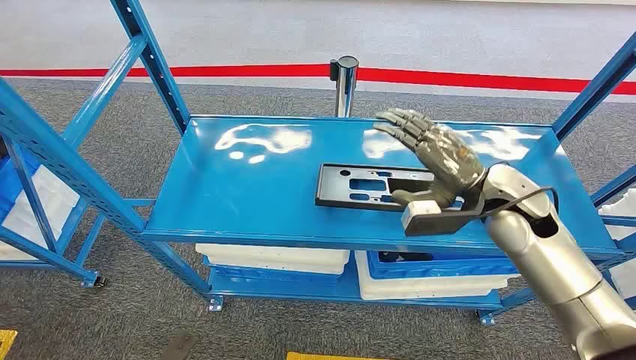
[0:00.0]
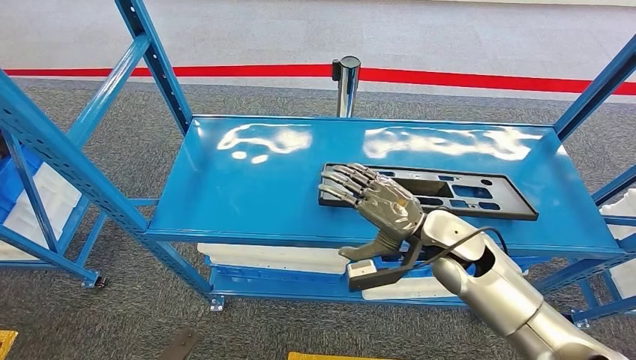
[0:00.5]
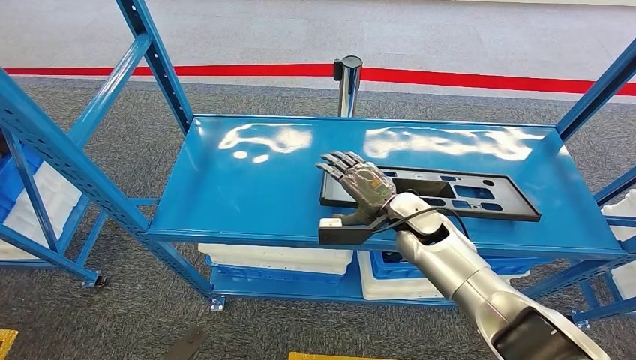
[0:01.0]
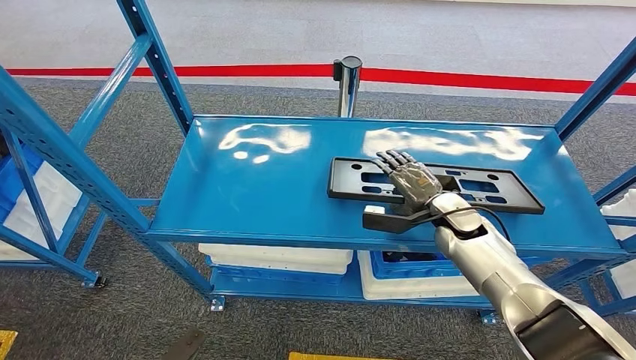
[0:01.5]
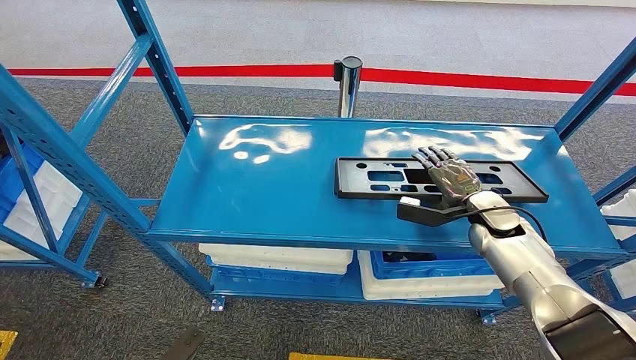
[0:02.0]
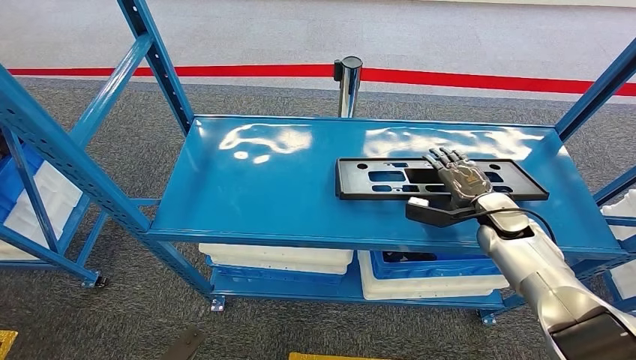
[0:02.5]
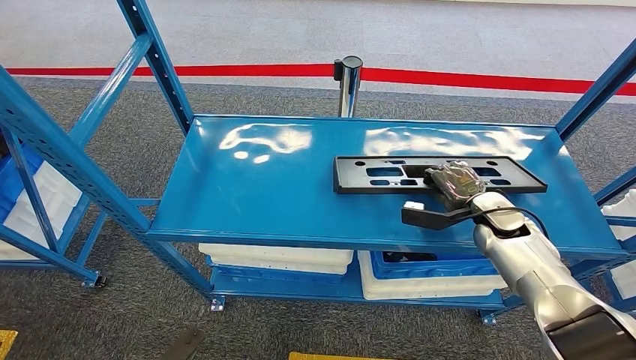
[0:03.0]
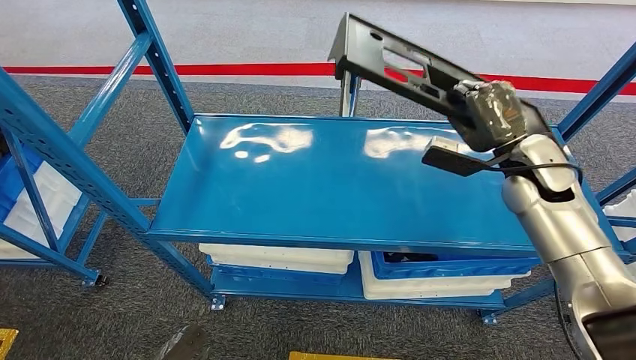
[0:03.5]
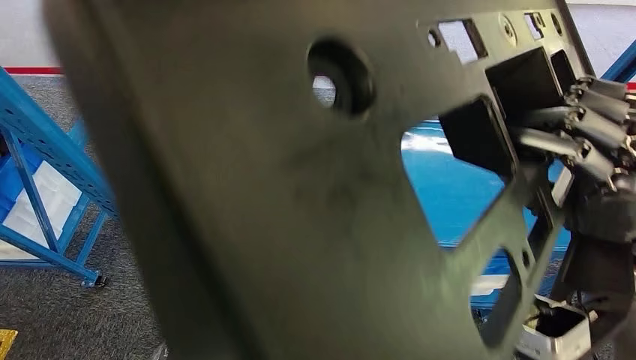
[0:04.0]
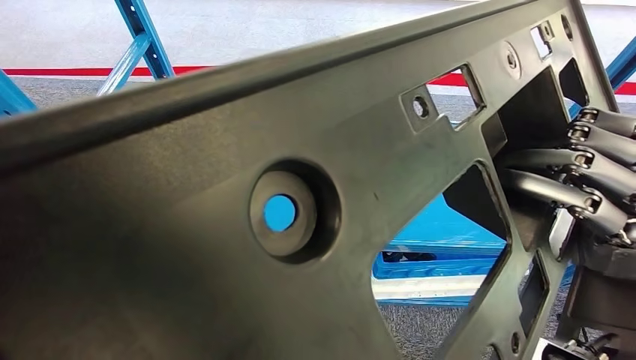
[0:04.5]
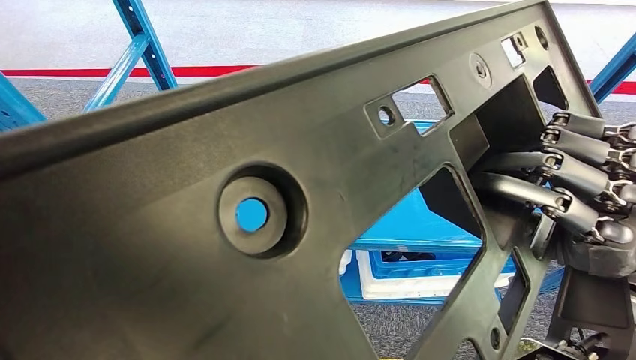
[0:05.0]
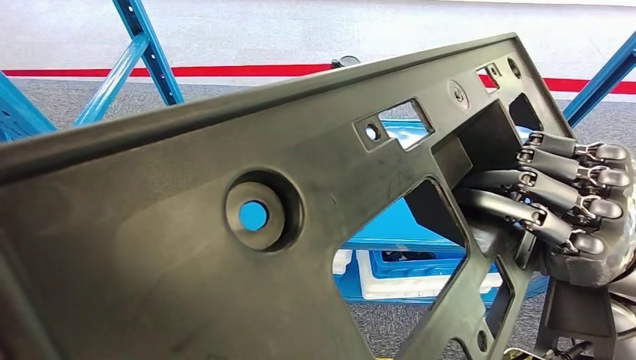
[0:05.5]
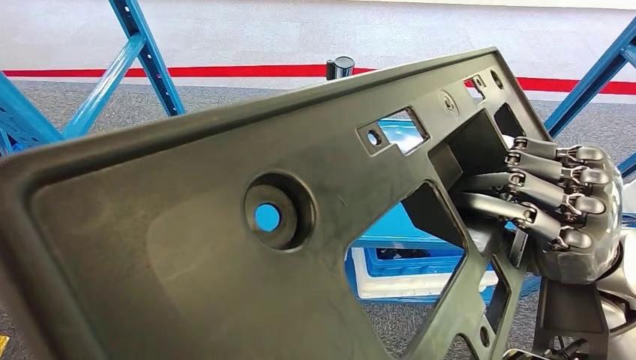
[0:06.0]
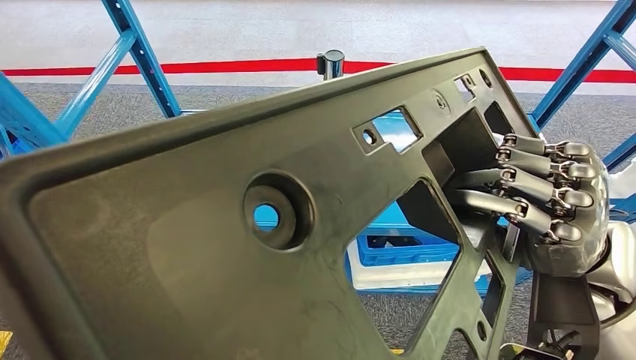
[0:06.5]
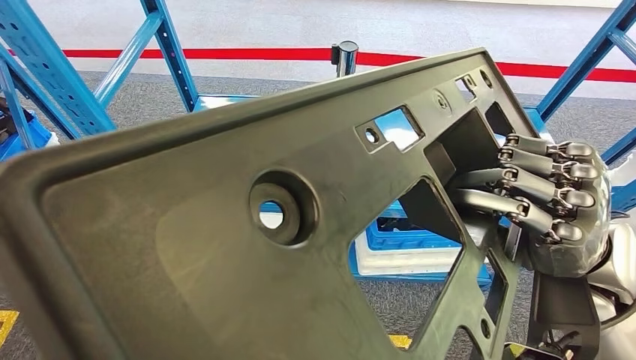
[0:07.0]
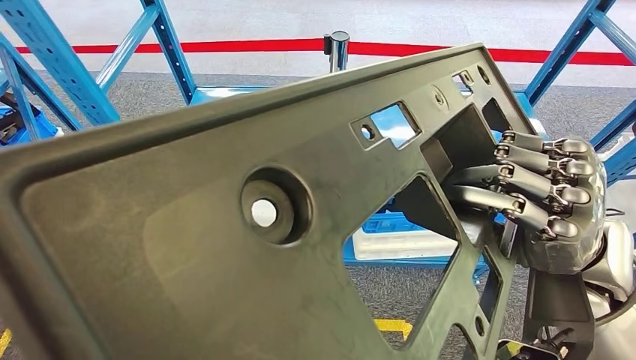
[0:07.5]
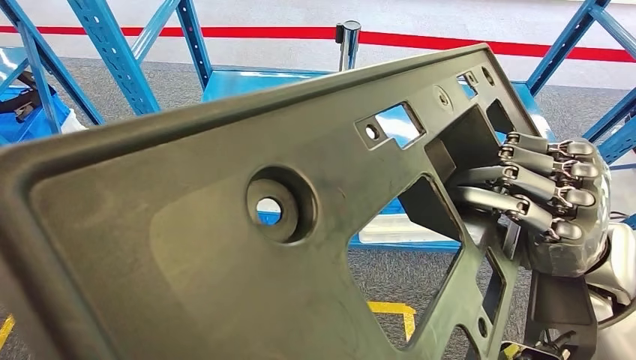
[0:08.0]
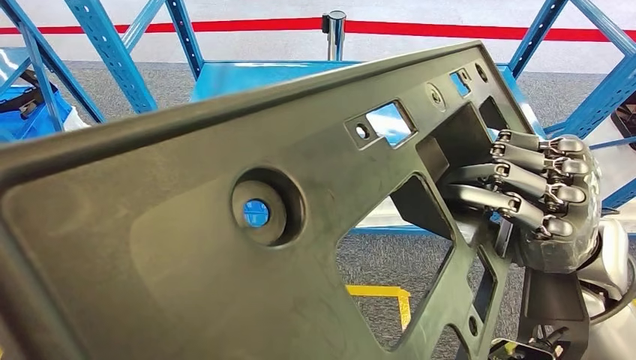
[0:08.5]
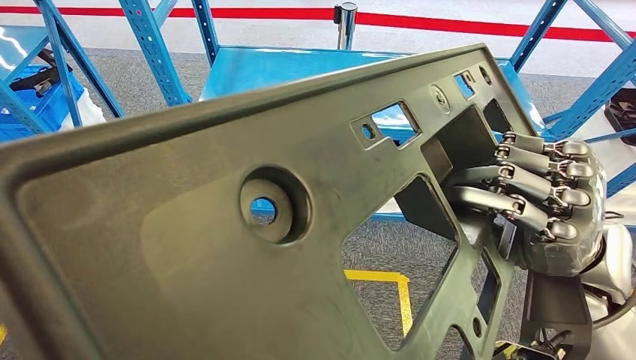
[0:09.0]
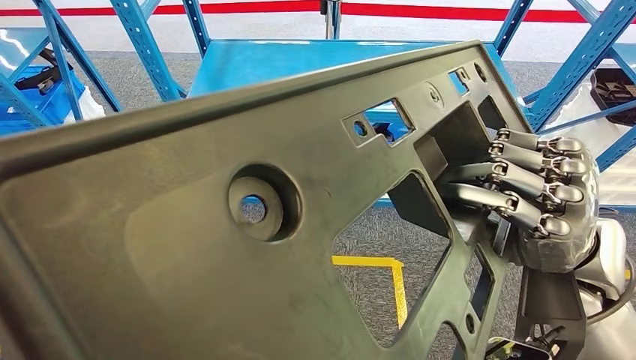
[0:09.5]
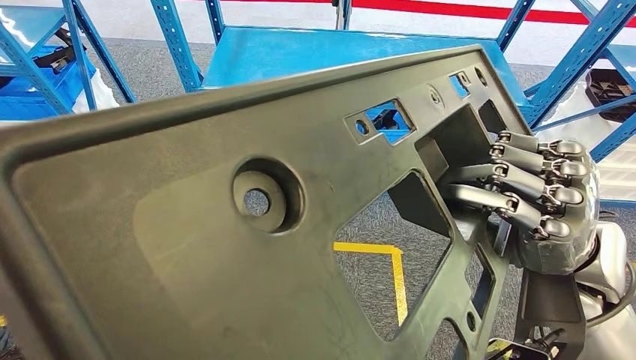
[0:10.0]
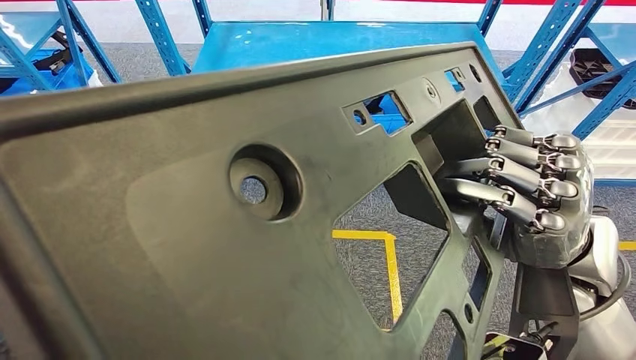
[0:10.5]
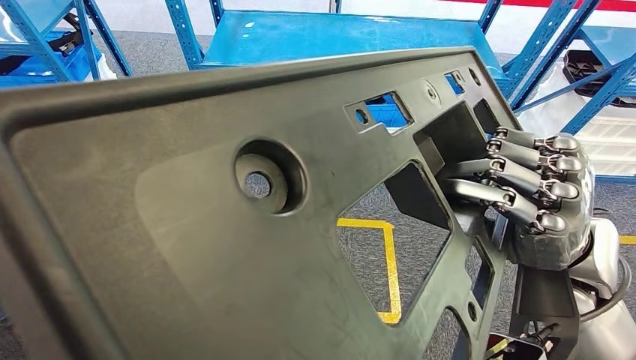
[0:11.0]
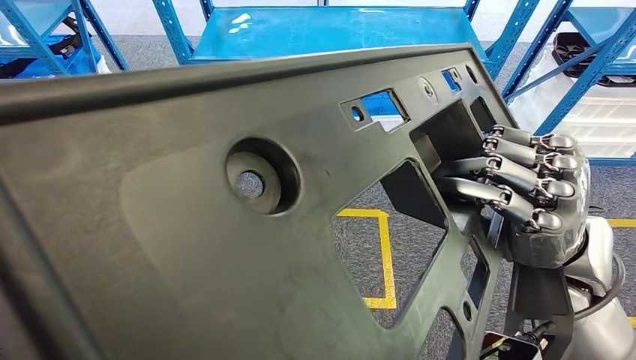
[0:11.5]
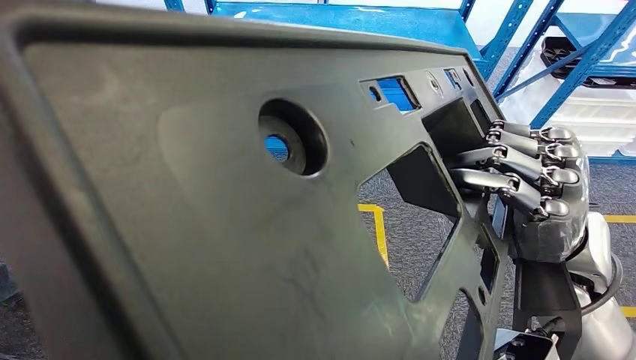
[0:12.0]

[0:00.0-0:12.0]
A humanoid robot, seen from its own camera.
Step, 0:00.0 to 0:03.0: Pick up the large material from the shelf.

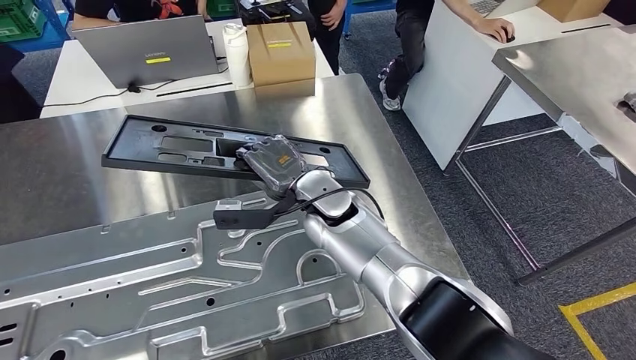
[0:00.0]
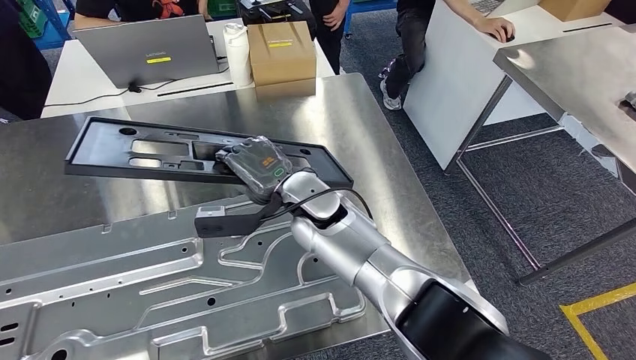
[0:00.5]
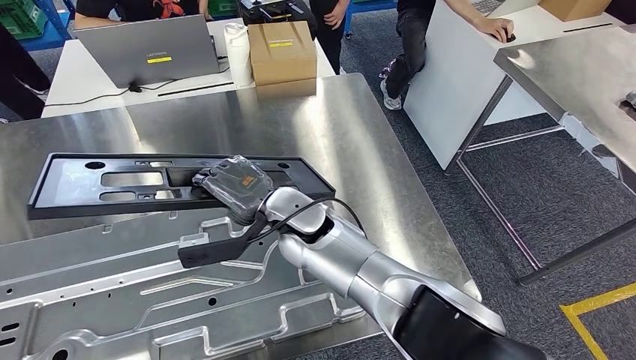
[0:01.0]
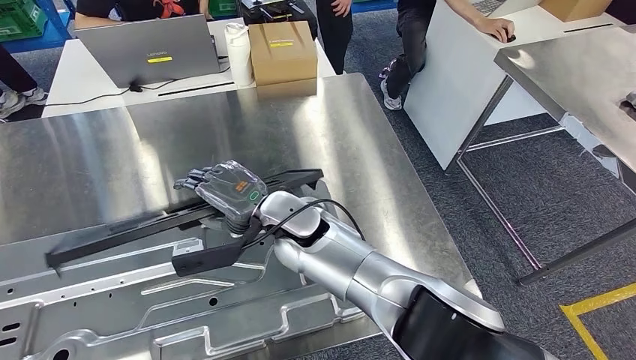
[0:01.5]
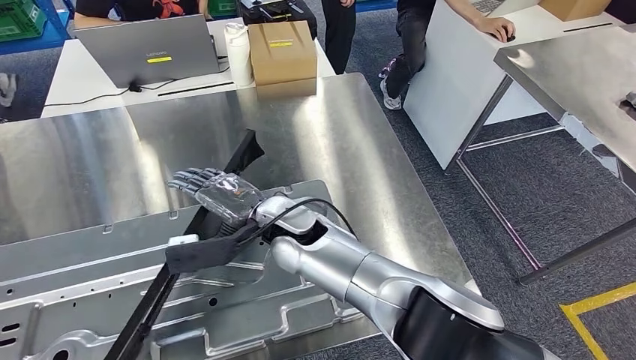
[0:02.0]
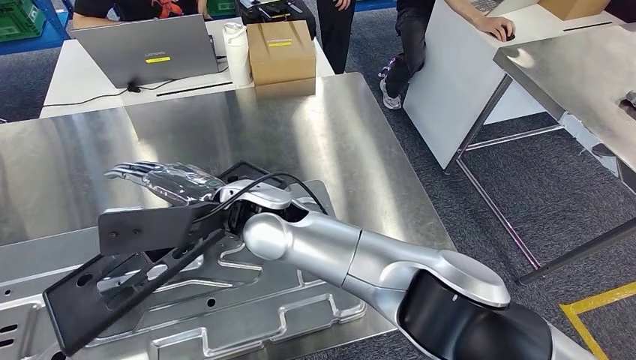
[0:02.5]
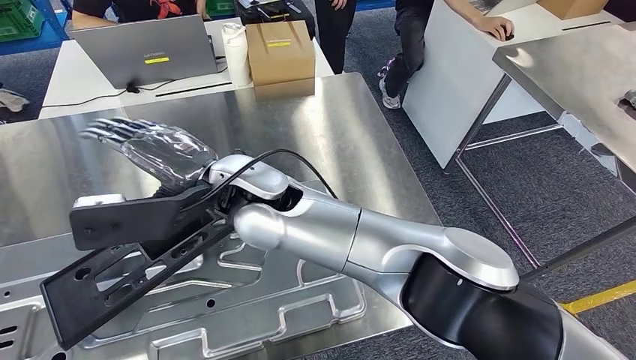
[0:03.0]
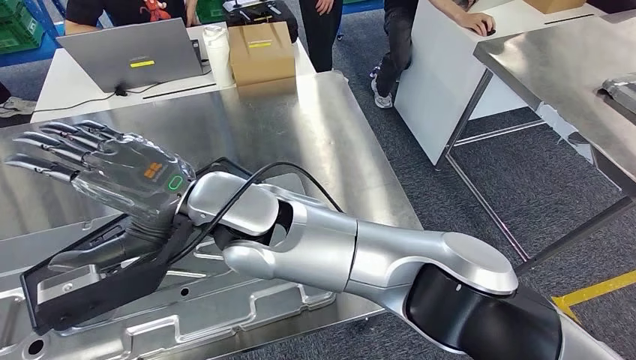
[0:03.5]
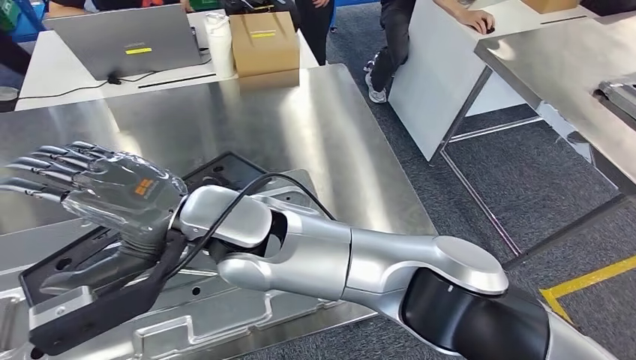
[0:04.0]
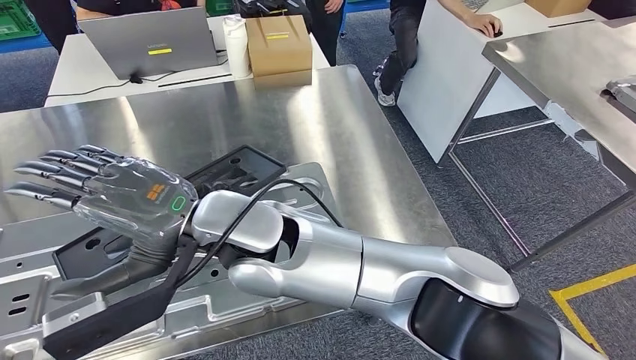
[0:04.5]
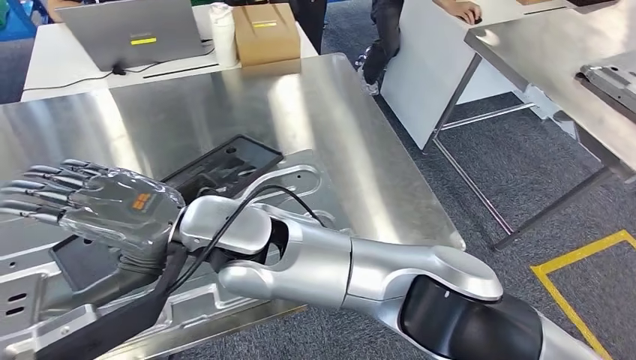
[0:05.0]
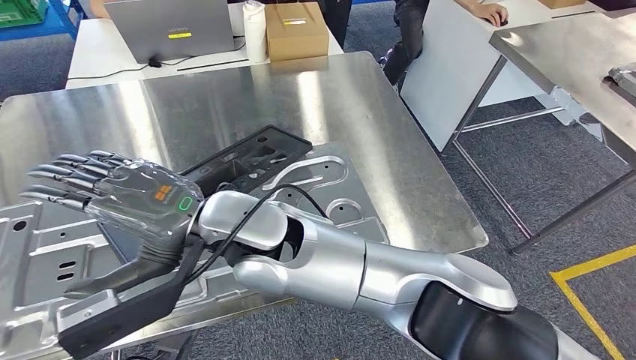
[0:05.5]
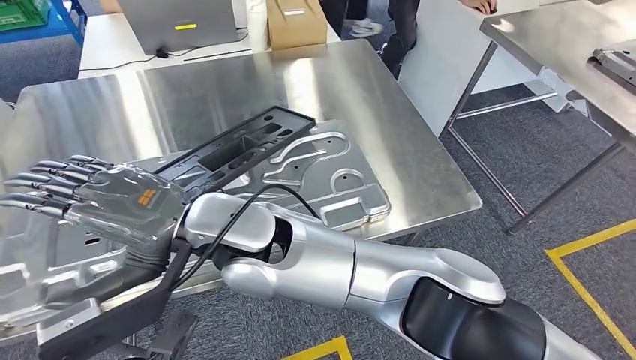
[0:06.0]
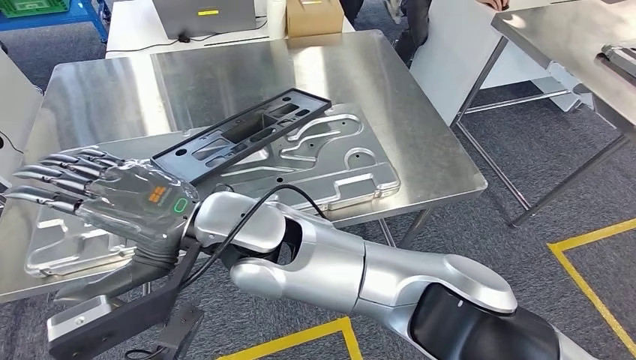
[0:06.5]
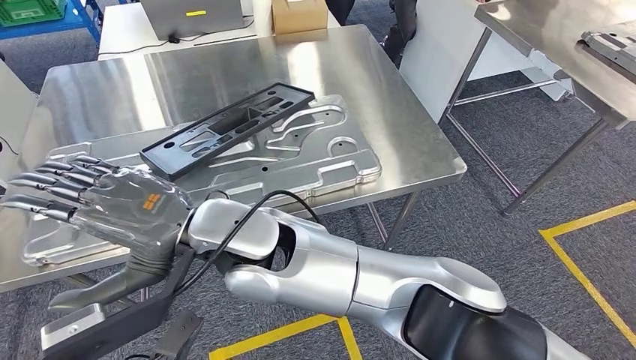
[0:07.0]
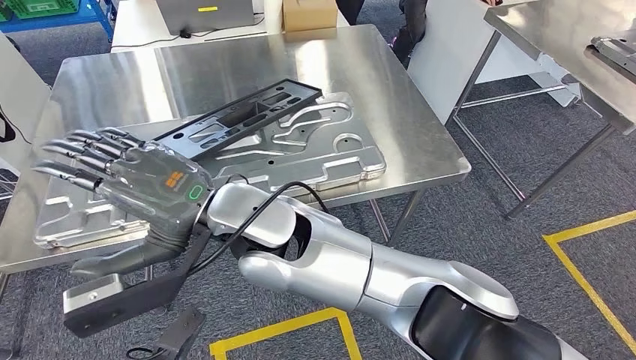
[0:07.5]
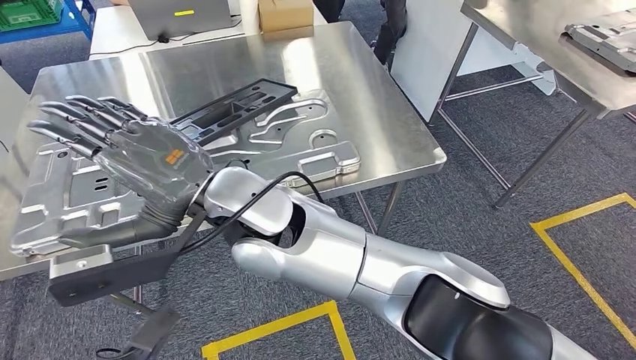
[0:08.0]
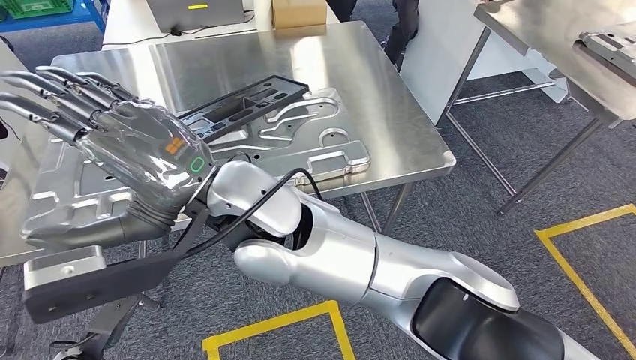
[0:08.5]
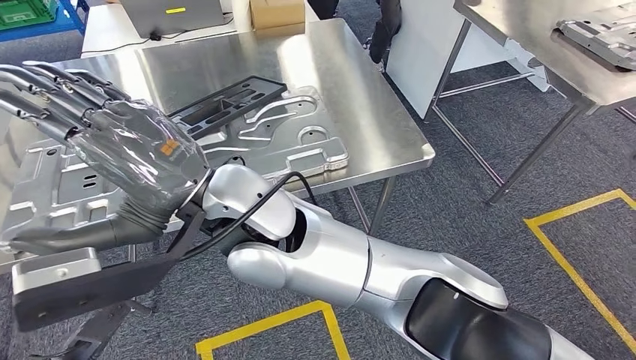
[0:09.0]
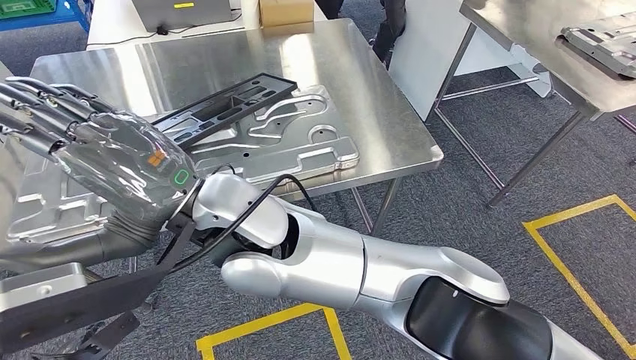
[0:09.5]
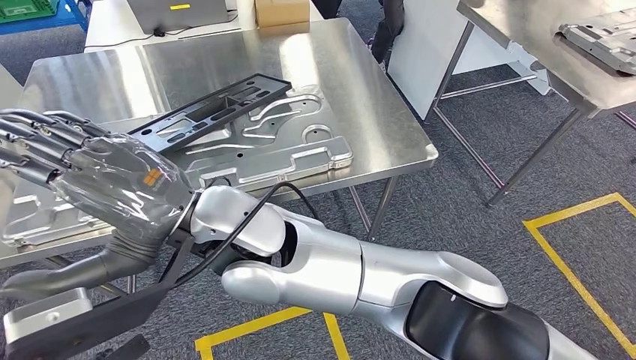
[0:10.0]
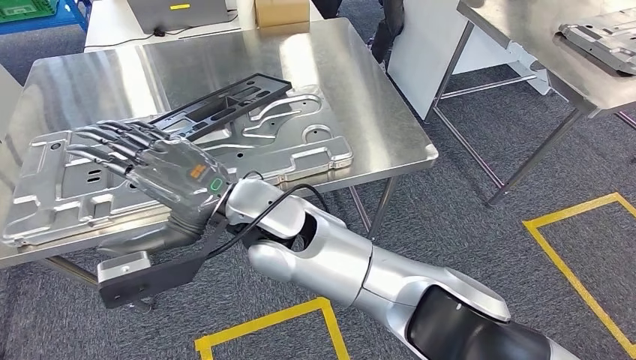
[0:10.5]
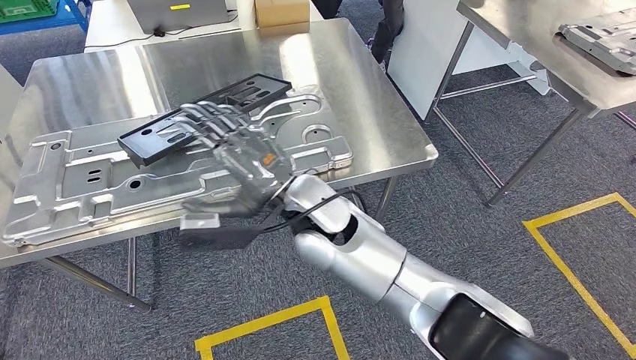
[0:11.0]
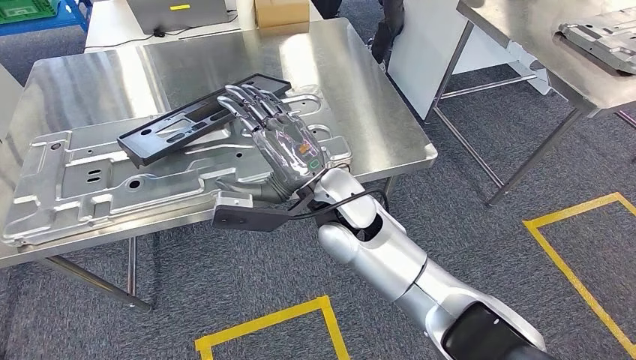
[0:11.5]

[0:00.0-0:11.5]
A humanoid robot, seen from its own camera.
Step, 0:00.0 to 0:05.5: Insert the large material into the corresponding slot on the workbench.
